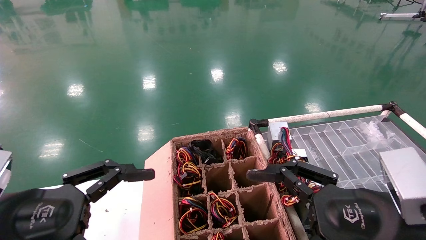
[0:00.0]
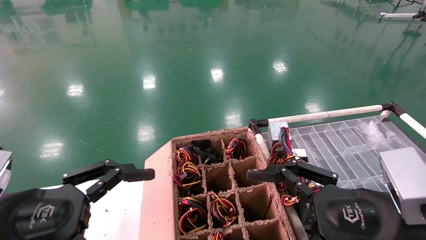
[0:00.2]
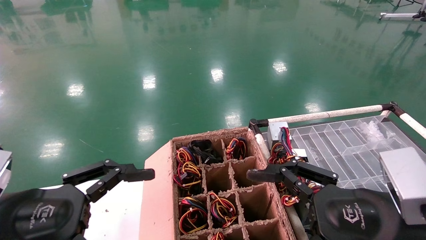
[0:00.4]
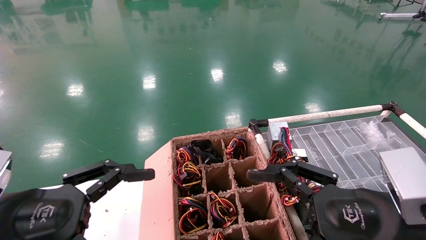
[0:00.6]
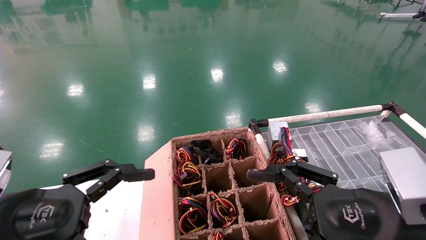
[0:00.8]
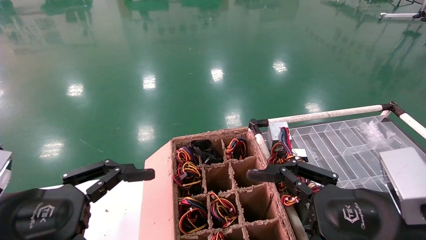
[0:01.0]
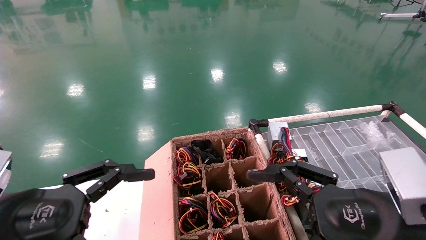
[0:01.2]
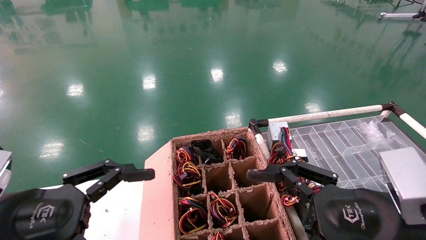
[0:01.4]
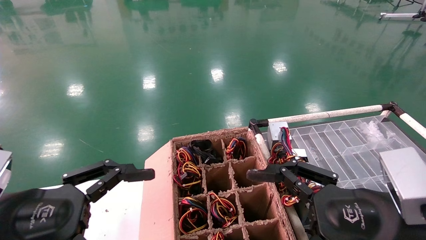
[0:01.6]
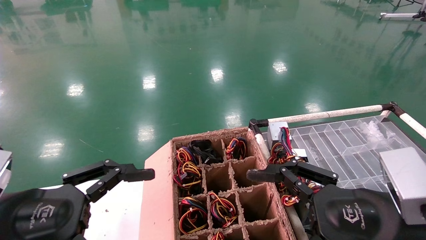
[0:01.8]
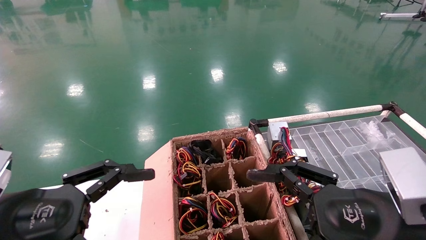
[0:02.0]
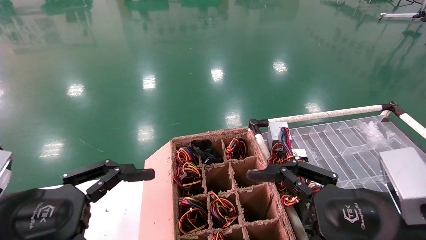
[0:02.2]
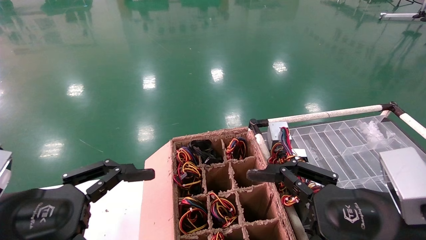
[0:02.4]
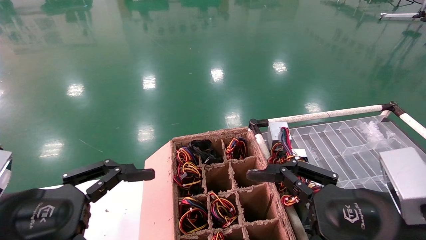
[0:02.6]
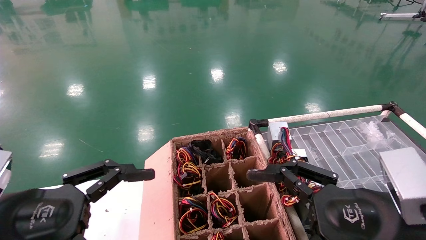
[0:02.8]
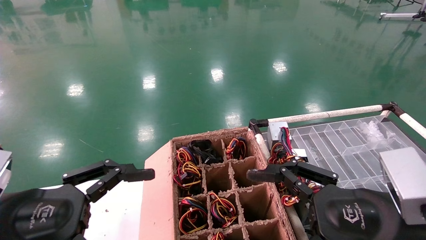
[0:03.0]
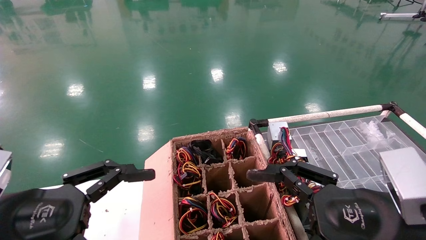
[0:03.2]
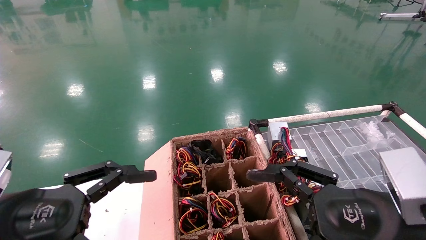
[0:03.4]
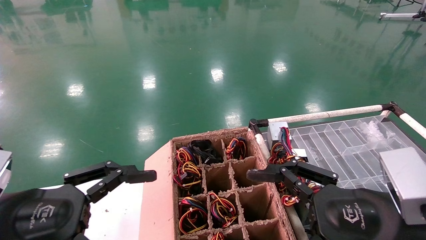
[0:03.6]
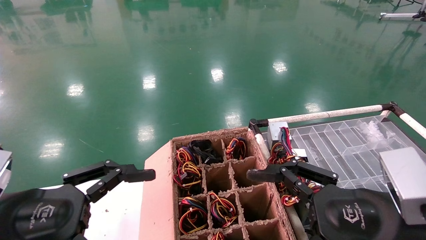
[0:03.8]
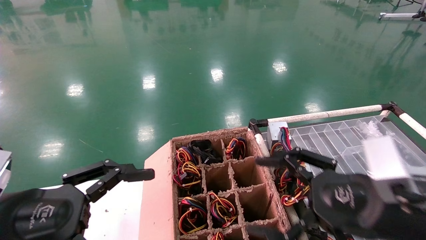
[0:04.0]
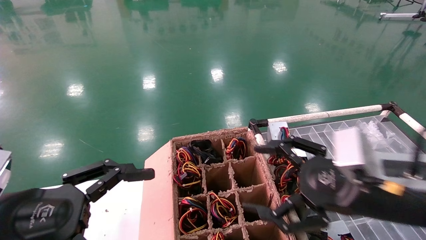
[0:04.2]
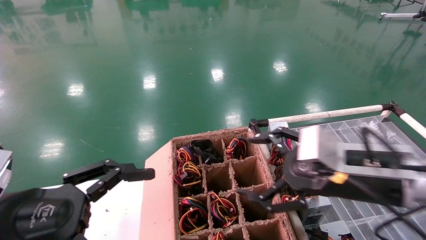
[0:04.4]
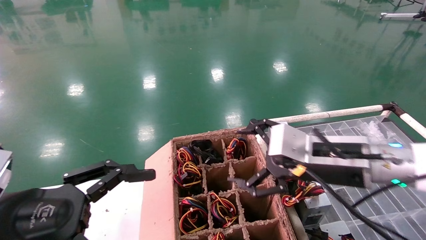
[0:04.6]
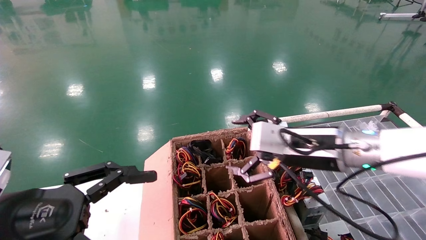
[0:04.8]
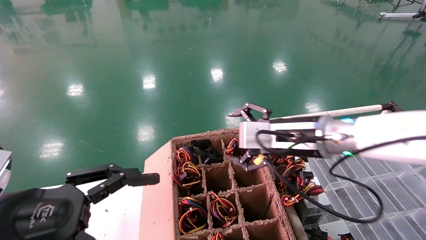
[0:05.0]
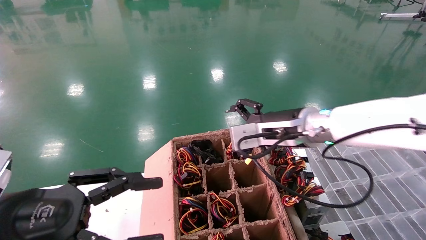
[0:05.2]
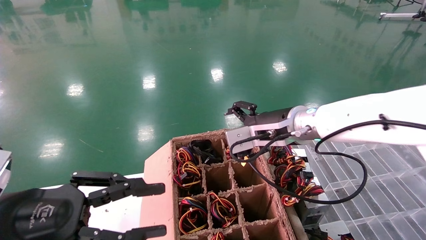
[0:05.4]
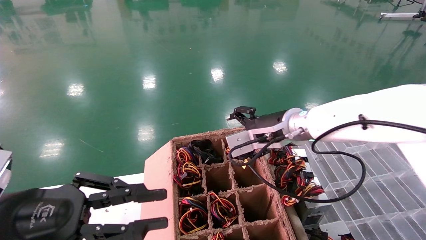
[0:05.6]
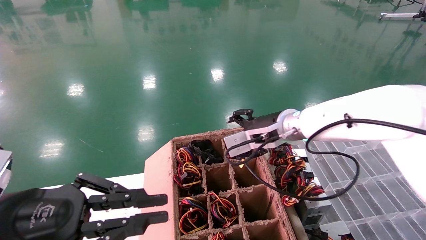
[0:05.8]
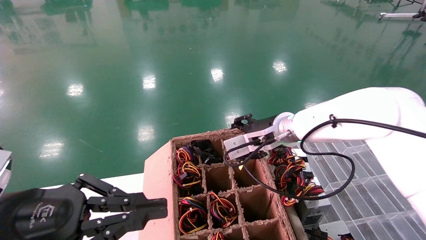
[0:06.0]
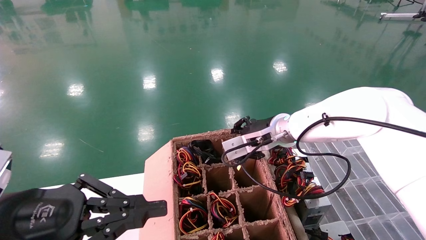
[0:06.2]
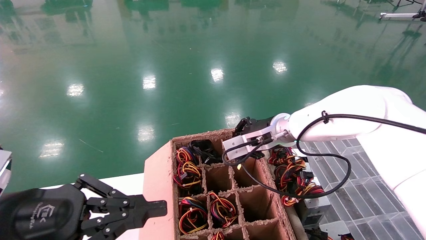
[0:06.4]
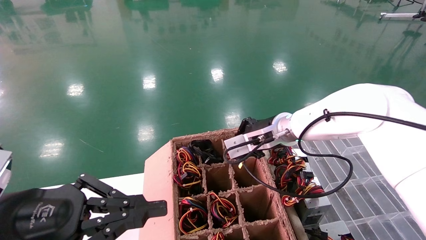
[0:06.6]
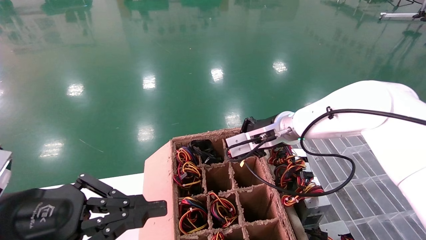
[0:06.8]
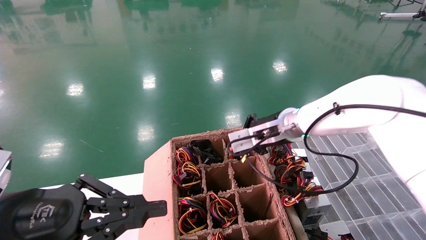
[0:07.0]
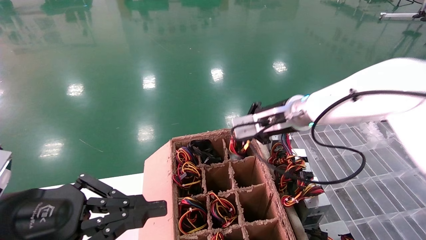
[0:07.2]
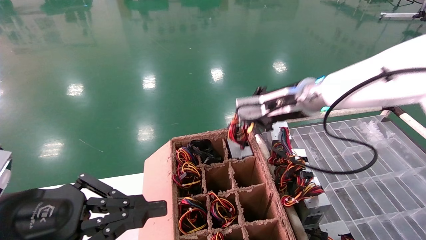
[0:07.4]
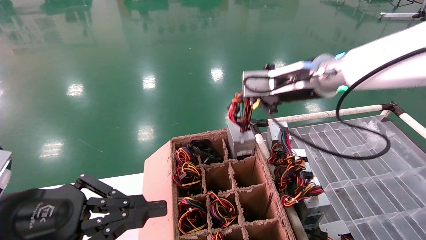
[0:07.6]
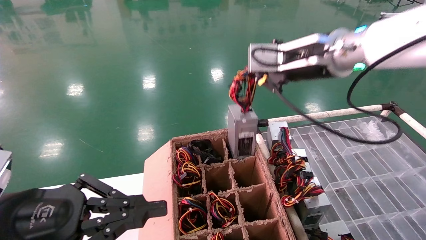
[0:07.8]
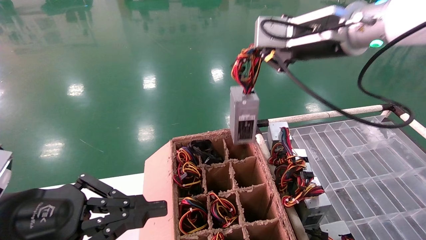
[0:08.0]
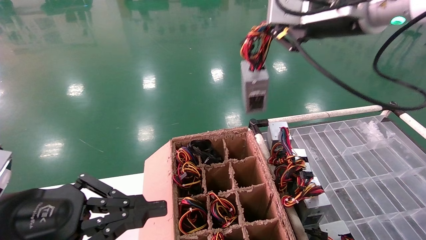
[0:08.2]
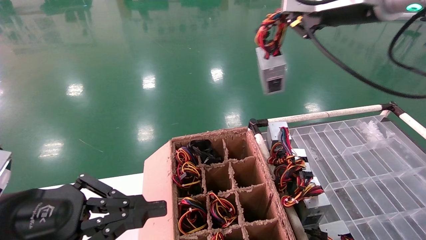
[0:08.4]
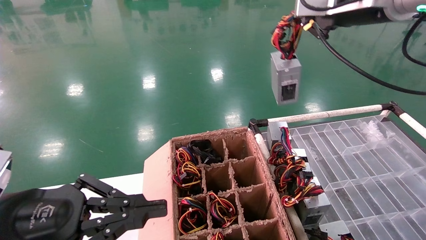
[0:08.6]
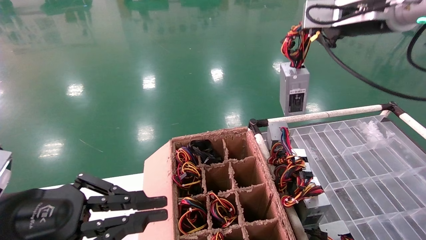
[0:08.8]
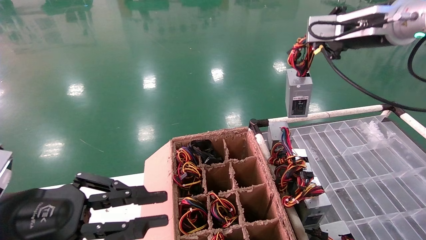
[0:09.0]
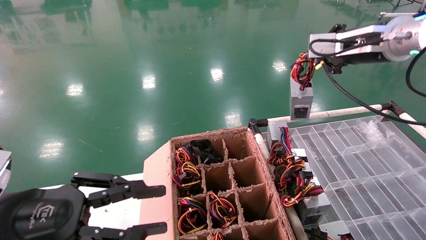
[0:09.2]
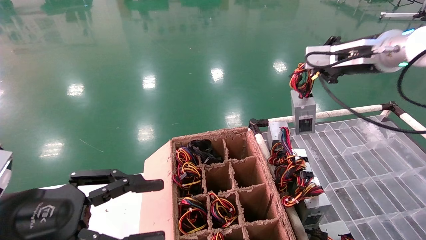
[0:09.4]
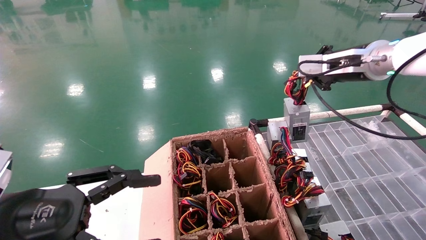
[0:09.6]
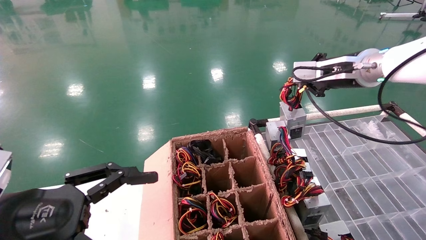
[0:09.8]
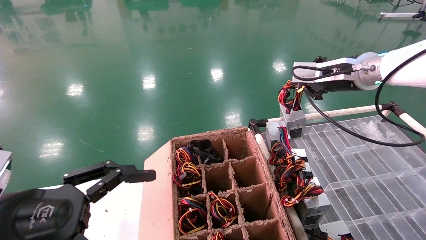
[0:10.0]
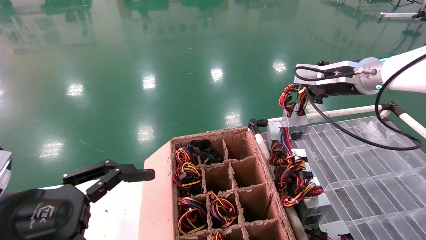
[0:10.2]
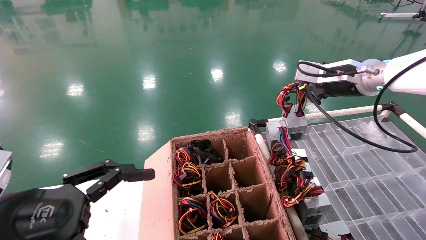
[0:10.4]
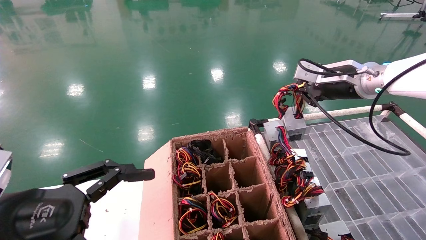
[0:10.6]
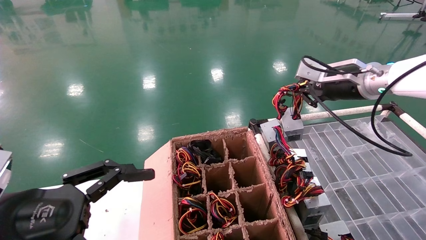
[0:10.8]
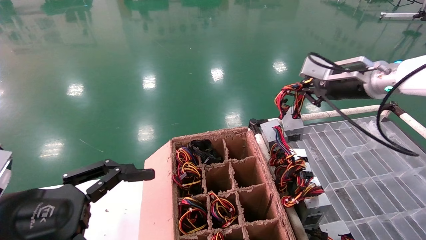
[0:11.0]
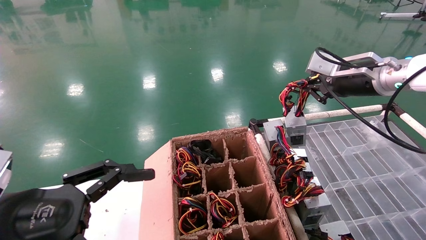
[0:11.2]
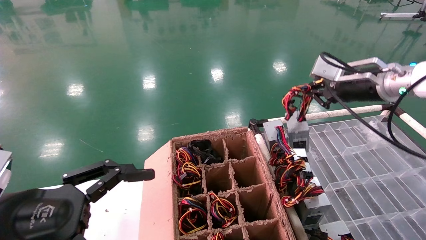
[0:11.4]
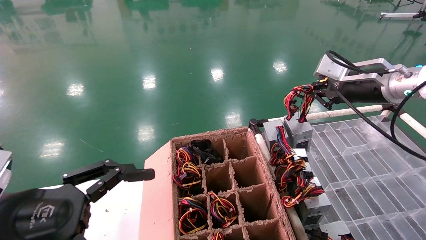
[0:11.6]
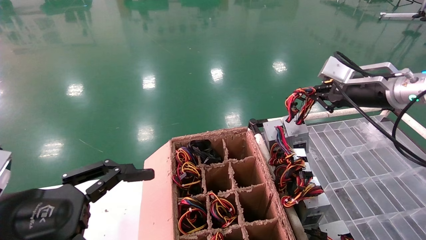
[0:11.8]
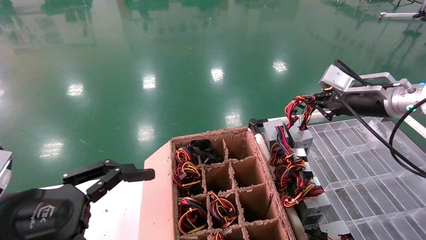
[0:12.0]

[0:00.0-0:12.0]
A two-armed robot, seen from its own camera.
Step, 0:04.2 to 0:06.8: Grab and lift the power supply from the large box.
0:00.0 to 0:03.0: Both grippers stay put.
0:03.0 to 0:04.4: The right gripper shifts approximately 10 cm forward.
0:04.4 to 0:06.0: The left gripper closes; the right gripper shifts some 20 cm forward and to the left.
0:06.0 to 0:07.6: The right gripper travels upward and backward by roughly 15 cm, and closes.
0:07.6 to 0:09.0: The right gripper goes about 15 cm to the right and upward.
0:09.0 to 0:10.4: The right gripper heads downward and forward, covering some 10 cm. The left gripper opens.
0:10.4 to 0:12.0: The right gripper moves some 5 cm.

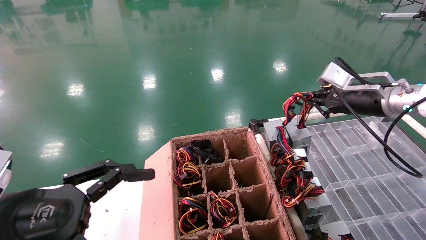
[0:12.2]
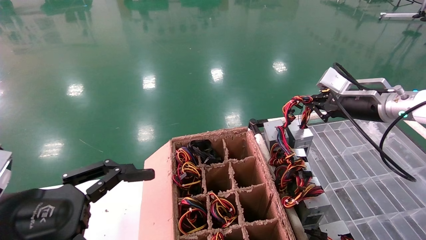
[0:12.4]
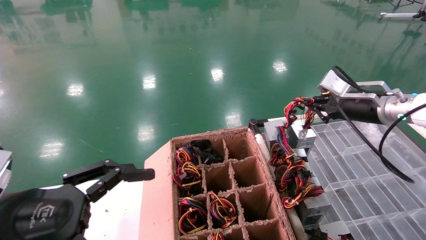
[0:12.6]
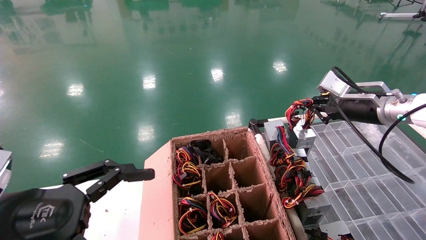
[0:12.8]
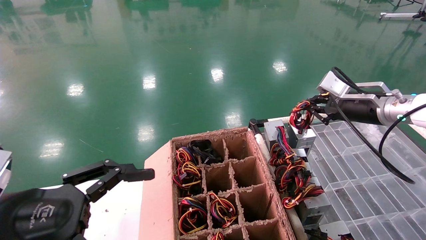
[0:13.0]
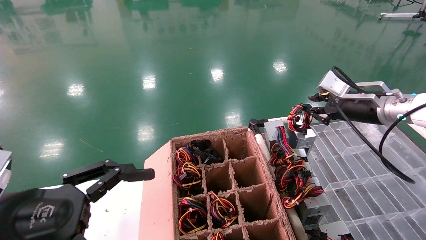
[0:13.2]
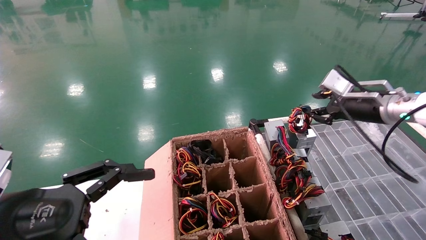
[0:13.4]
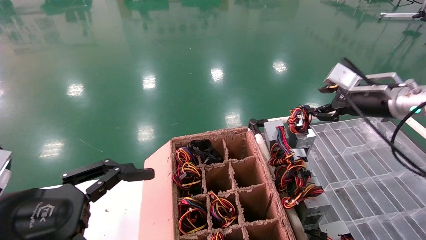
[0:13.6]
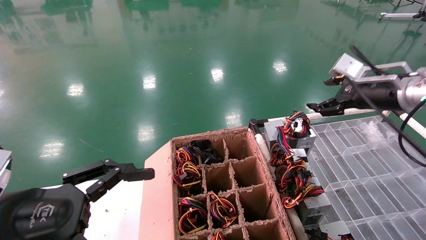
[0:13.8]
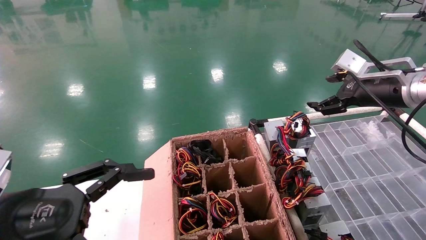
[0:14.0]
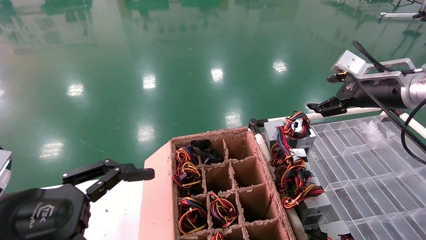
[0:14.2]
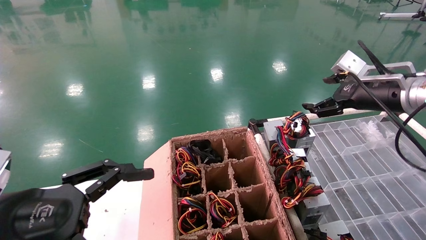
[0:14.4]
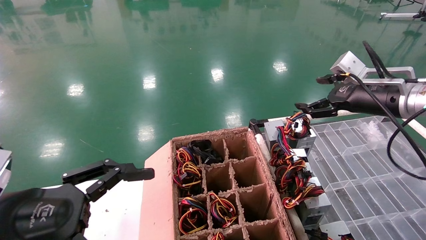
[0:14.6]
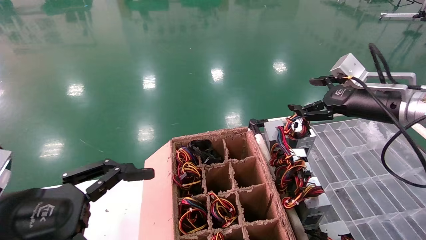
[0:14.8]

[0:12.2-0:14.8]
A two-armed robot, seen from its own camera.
0:12.2 to 0:13.4: The grippers make only small movements.
0:13.4 to 0:14.8: The right gripper opens up.

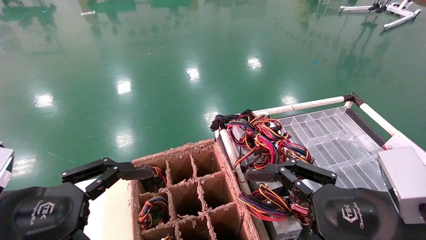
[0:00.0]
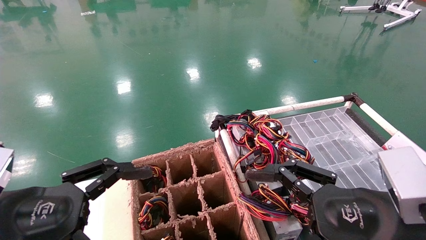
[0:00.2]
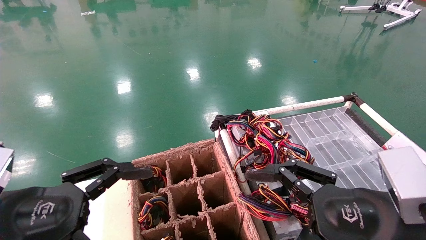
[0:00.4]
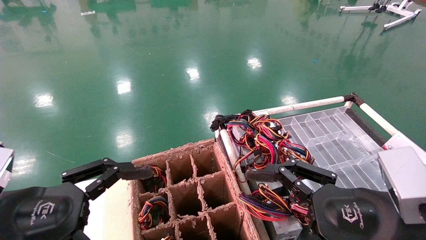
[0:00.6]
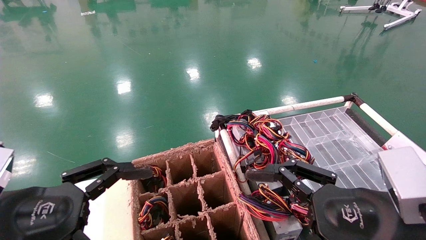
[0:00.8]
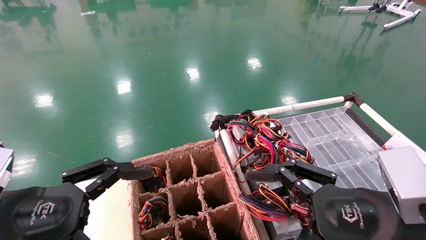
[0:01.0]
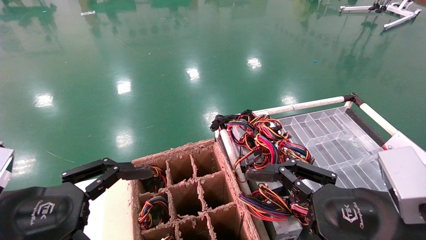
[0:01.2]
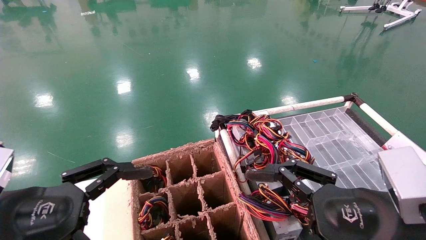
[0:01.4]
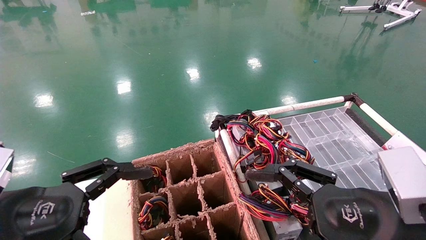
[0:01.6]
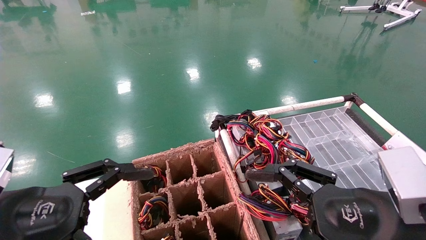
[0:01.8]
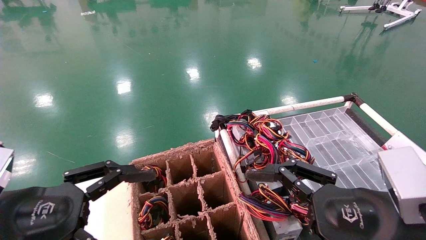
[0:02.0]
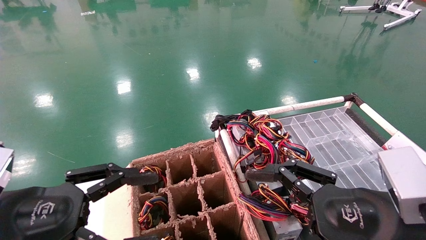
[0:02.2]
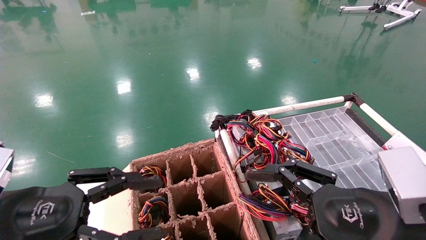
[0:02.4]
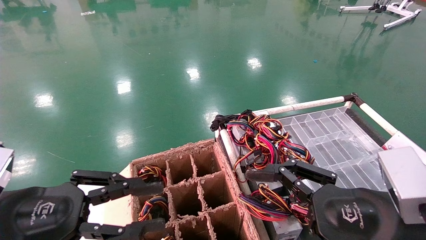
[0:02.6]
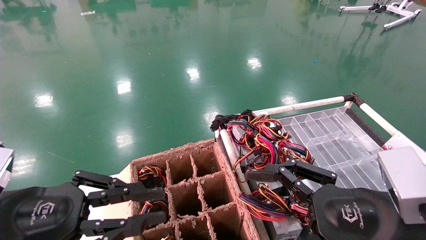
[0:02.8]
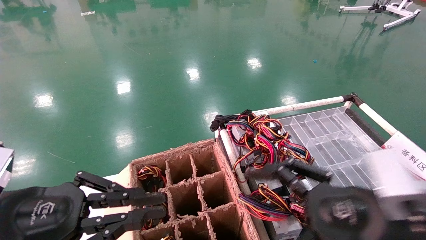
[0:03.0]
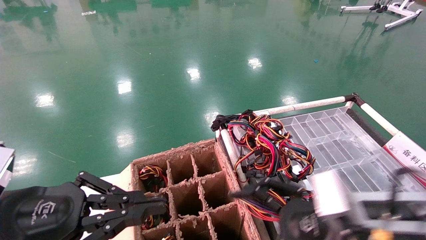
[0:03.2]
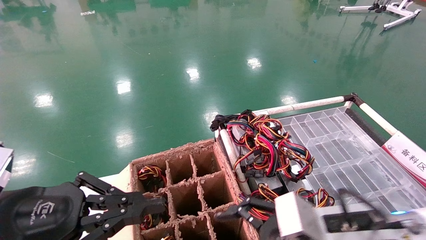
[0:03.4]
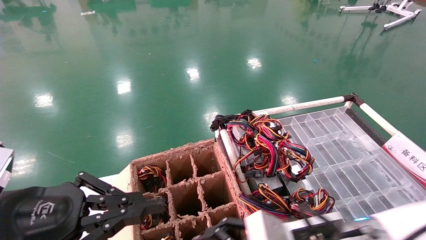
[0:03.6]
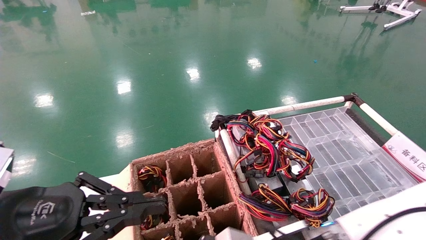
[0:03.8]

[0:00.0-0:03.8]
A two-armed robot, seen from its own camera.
0:00.0 to 0:01.2: Both grippers stay about where they are.
0:01.2 to 0:02.6: The left gripper closes its fingers.
0:02.6 to 0:03.8: The right gripper travels to the left, downward and forward by approximately 15 cm. Meanwhile the left gripper closes.
